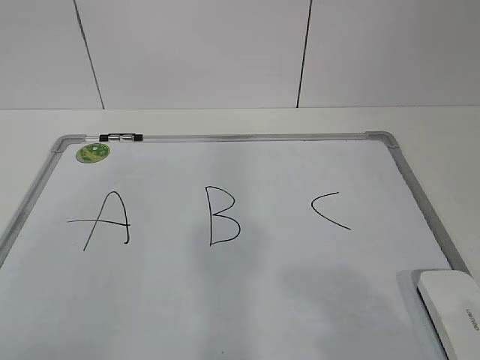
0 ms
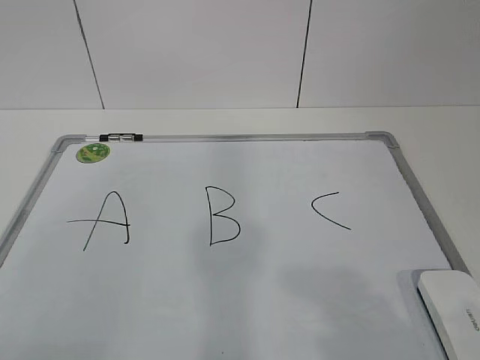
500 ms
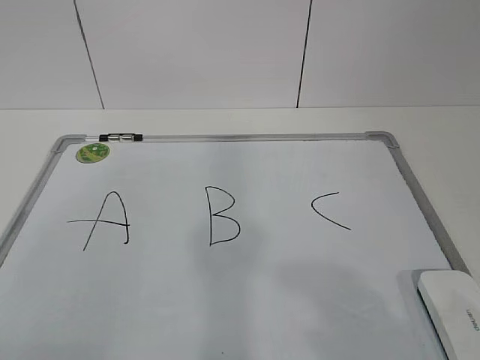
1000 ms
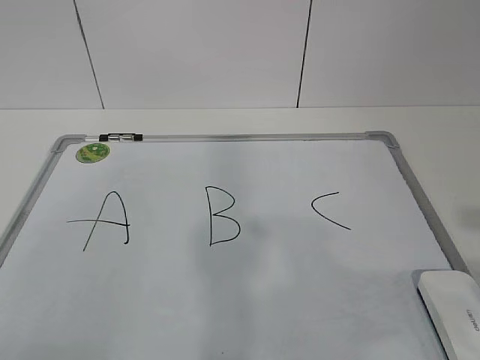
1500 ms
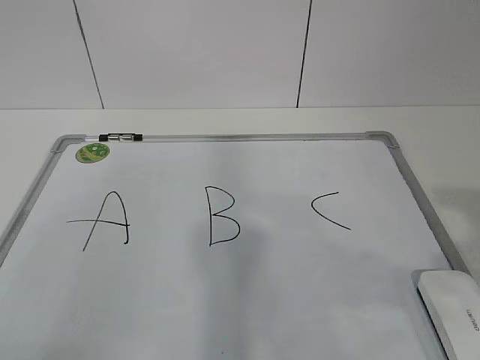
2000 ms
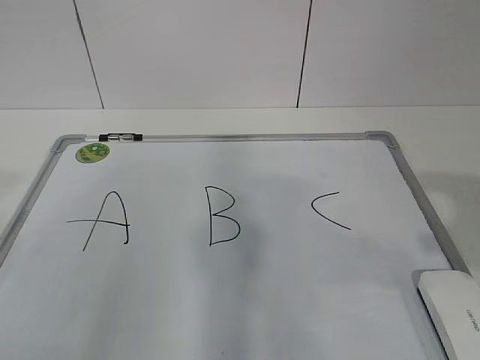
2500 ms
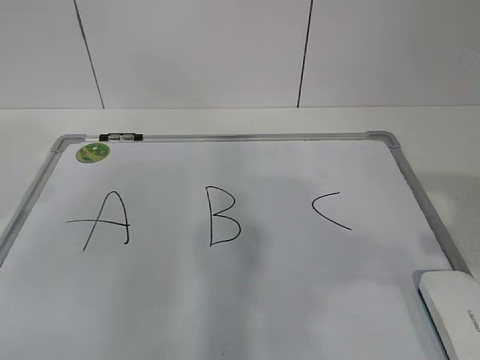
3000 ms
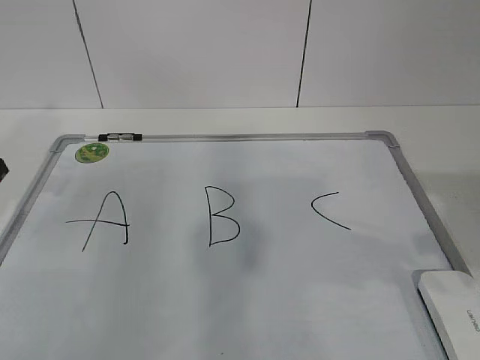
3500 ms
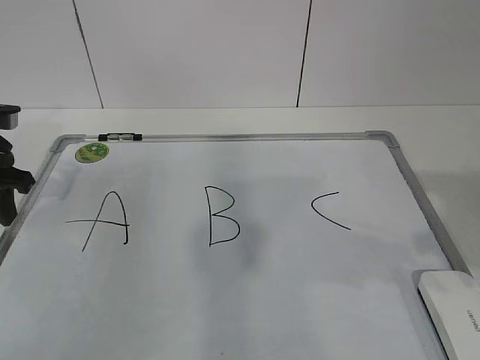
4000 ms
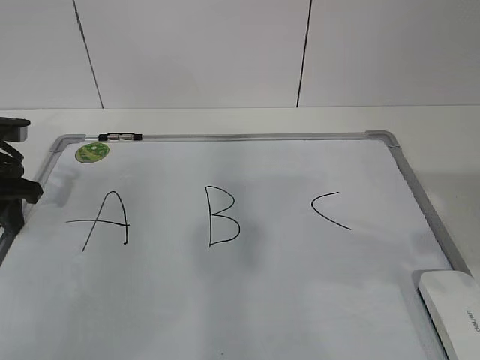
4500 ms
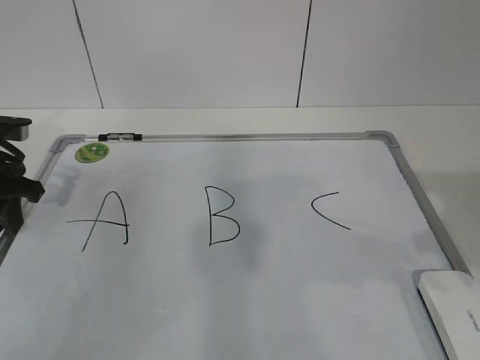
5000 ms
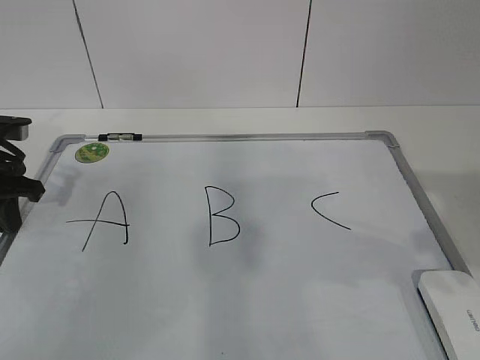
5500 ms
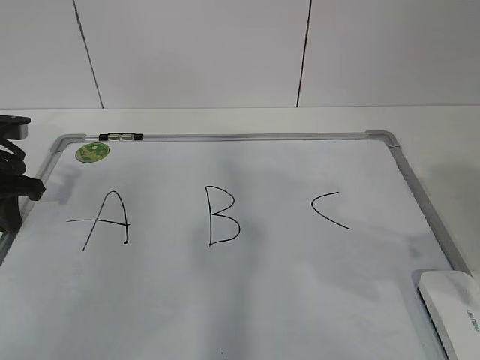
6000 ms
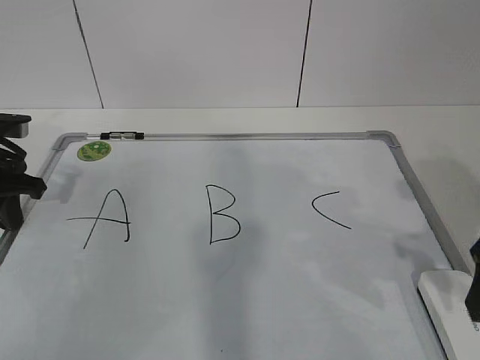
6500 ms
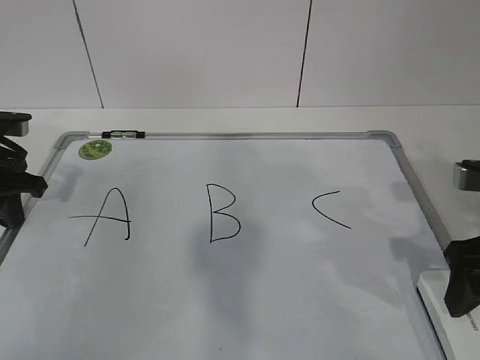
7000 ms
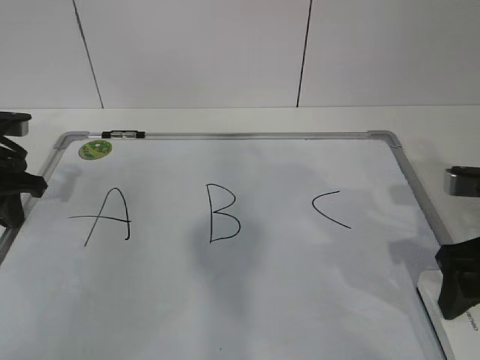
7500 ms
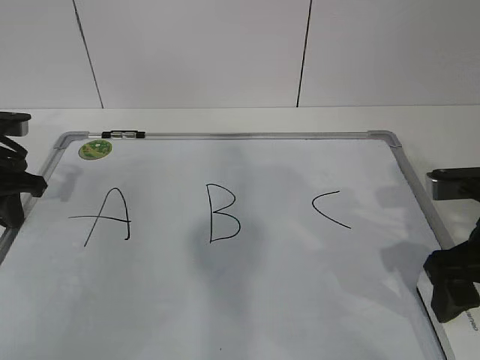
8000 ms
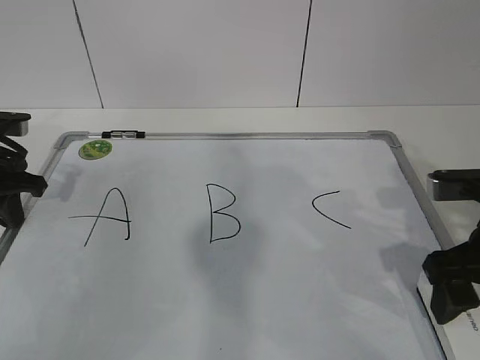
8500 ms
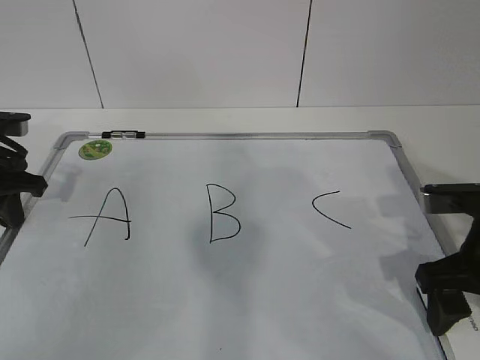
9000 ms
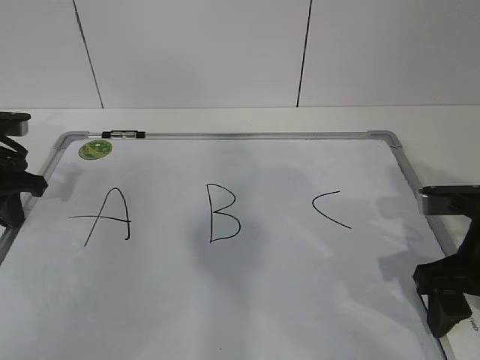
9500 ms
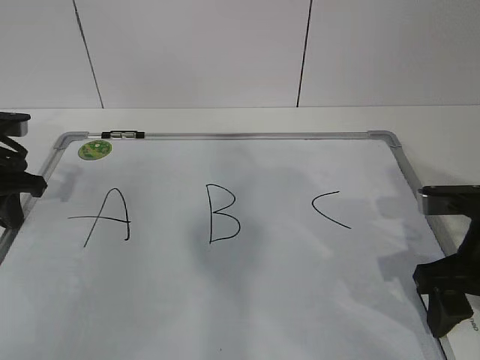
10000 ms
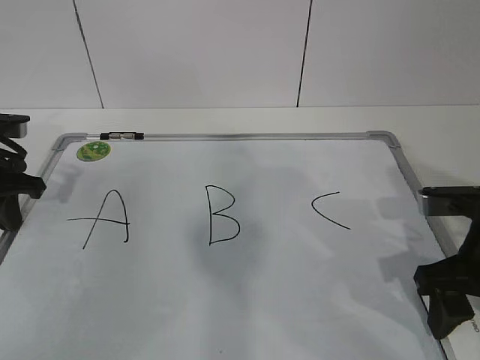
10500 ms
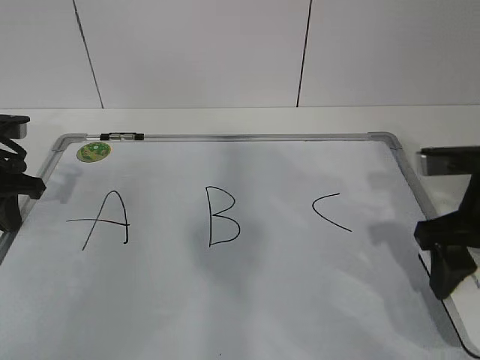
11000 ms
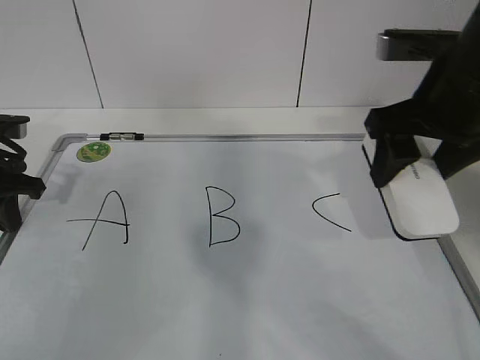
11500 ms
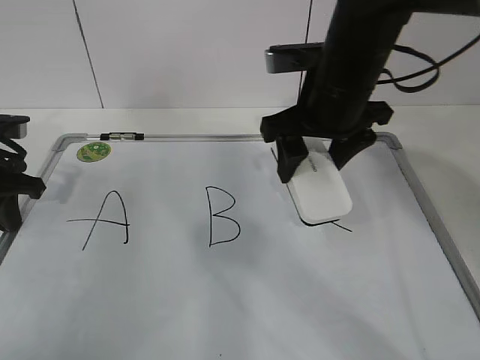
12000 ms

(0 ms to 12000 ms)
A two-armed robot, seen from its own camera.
Task of the whole recording: pick up the eraser on the blackboard and erase the letter "B".
Step, 0 ms - 4000 ms: Hold the drawing board steady with your left hand.
Step, 4500 ms - 8000 ms: Grab the eraser with your right hand.
2000 ms - 4000 ms: The left gripper goes approximately 30 cm forward.
4000 ms - 6000 ms: The left gripper closes its fingers.
6000 ms - 8000 ms: The right gripper goes roughly 10 cm downward and forward, and opens.
8000 ms - 10000 ms: The right gripper closes its fingers.
10000 ms - 12000 ms: The right gripper shifts approximately 20 cm to the left, forward and upward.

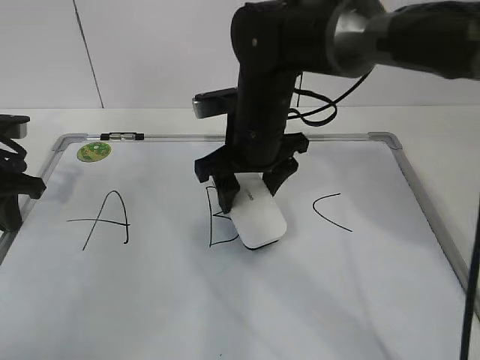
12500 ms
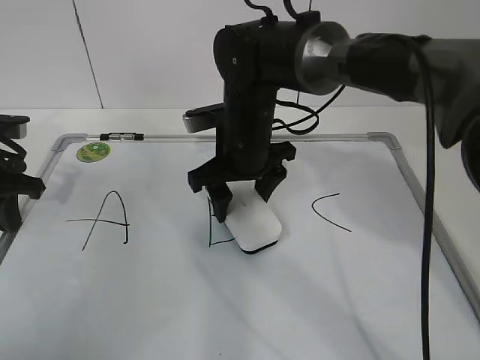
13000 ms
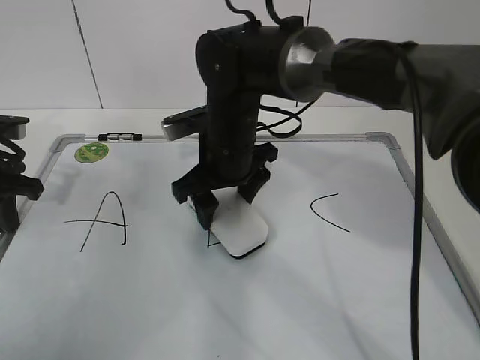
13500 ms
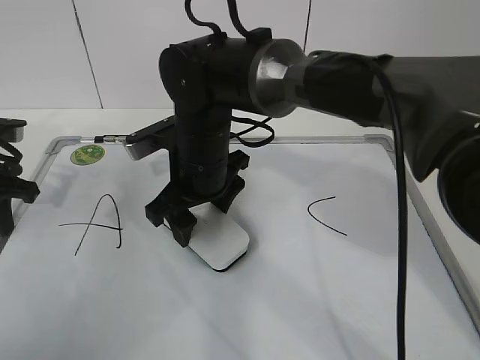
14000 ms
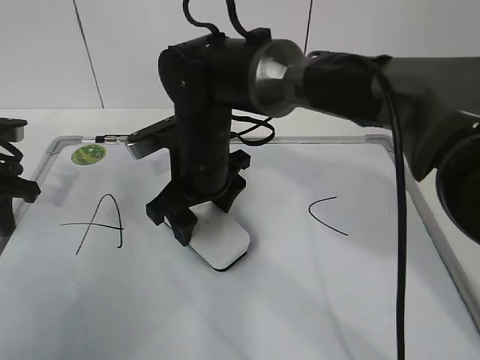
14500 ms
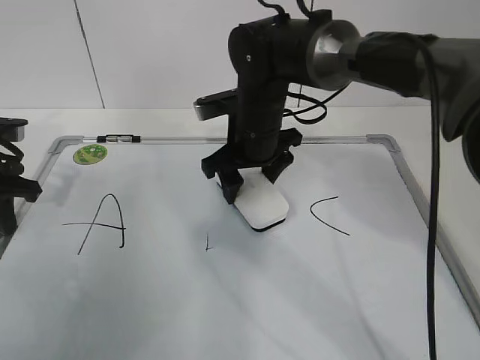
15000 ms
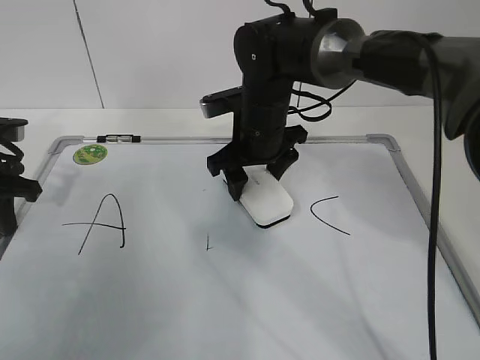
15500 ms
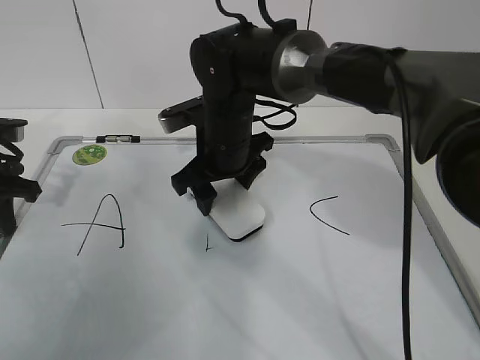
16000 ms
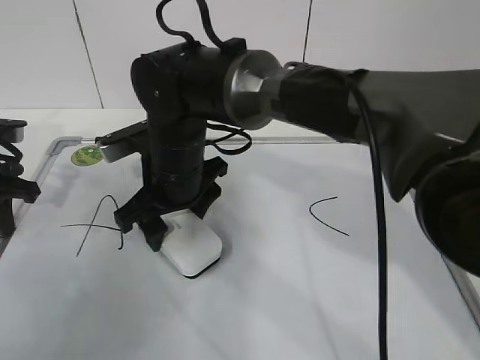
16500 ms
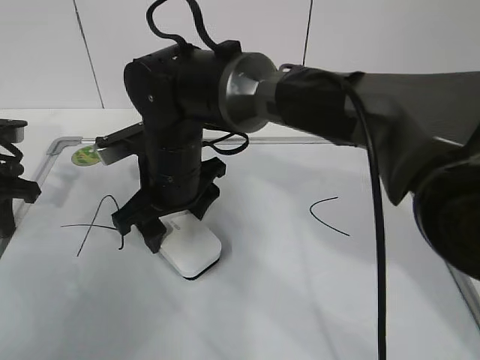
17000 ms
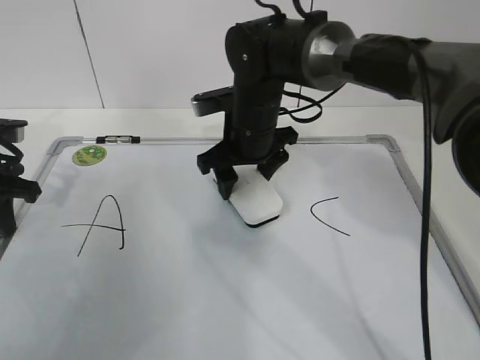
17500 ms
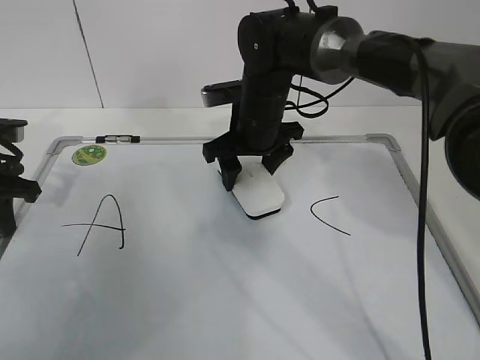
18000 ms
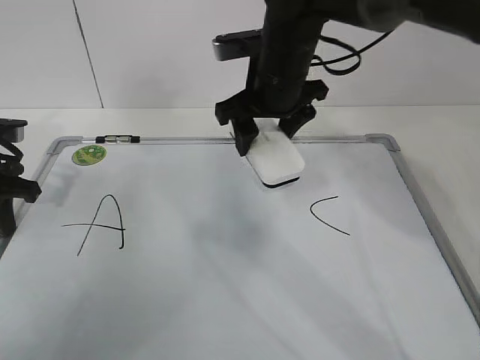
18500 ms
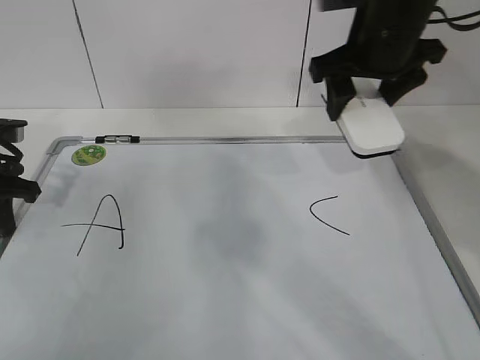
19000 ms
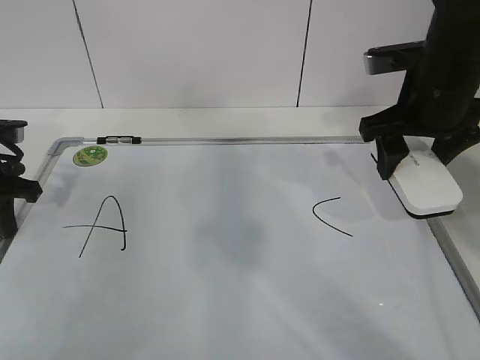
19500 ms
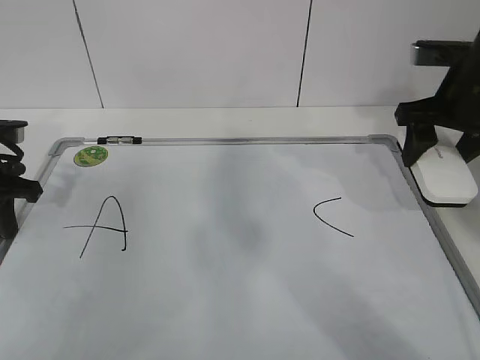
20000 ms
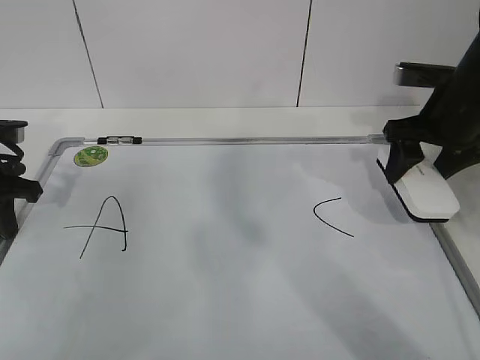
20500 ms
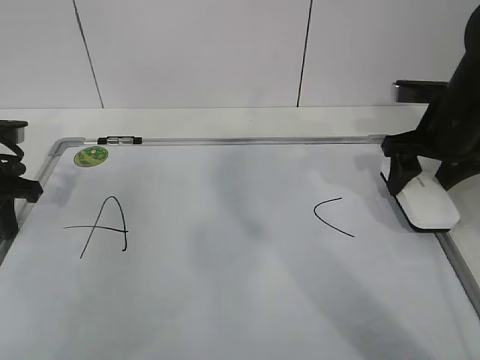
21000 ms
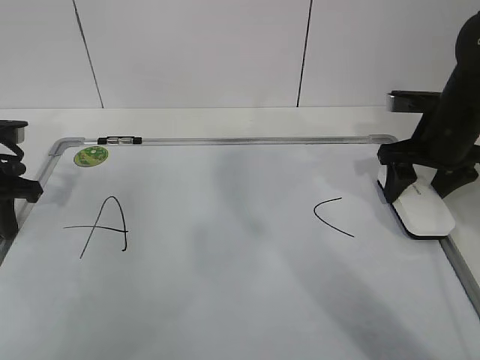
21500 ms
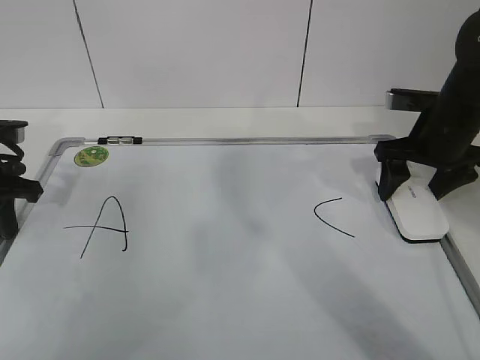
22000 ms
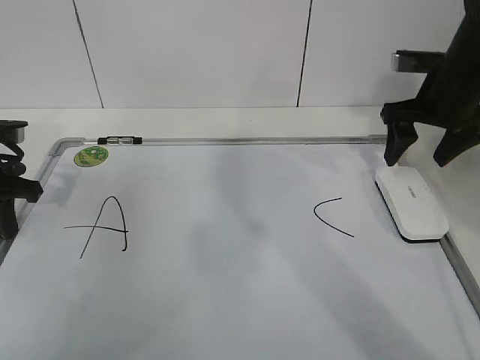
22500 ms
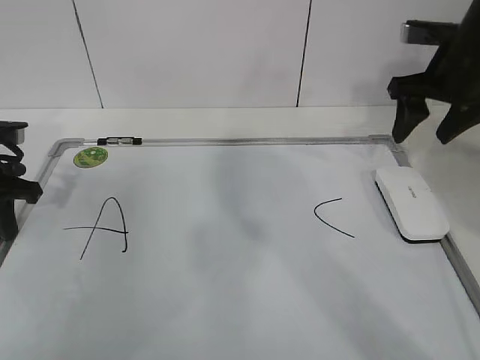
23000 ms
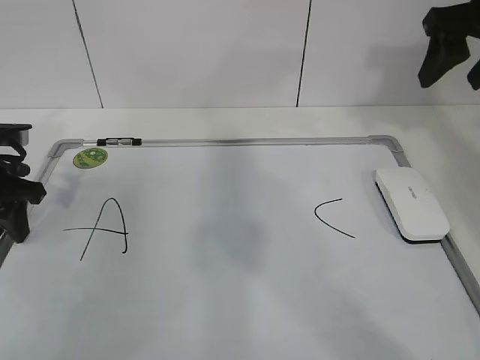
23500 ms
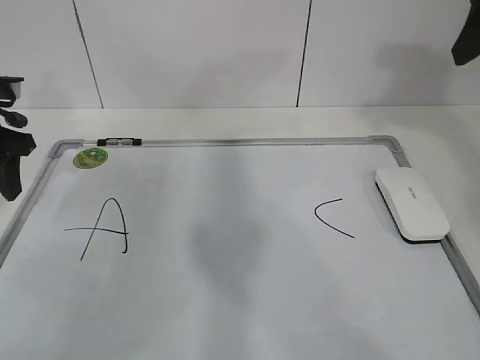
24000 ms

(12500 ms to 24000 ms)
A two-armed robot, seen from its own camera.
Task of the whole recording: pick up the eraser on the blackboard and erase the letter "B".
Step, 12500 ms - 14500 ms: Erase the letter B with your right hand.
Step, 15000 ms - 18000 ms: Put down the eraser with your right hand.
12500 ms - 14500 ms: The right gripper travels to the left by roughly 5 cm.
14500 ms - 16500 ms: The right gripper moves some 5 cm to the right and comes back.
16500 ms - 18500 ms: The right gripper travels to the right, upward and forward by some 15 cm.
18500 ms - 20000 ms: The right gripper travels to the right by some 20 cm.
20000 ms - 22000 ms: The right gripper travels downward by some 5 cm, and opens up.
22000 ms - 24000 ms: The left gripper moves upward, about 5 cm, and opens up. Meanwhile the right gripper heads upward, covering approximately 20 cm, and closes up.

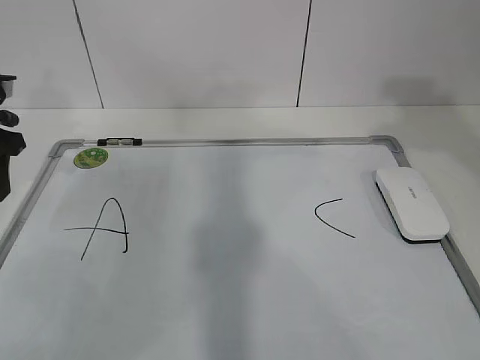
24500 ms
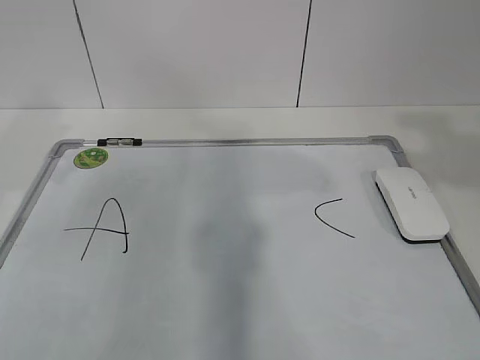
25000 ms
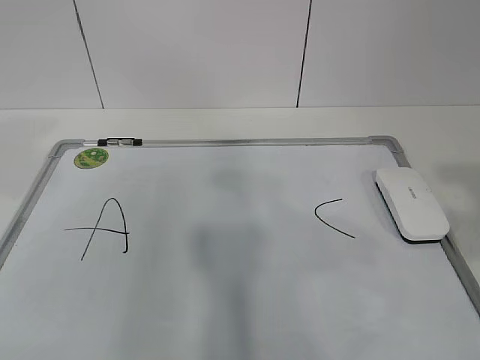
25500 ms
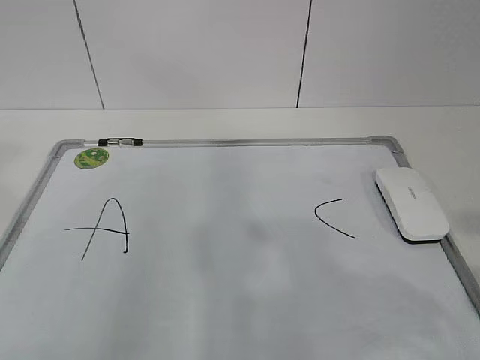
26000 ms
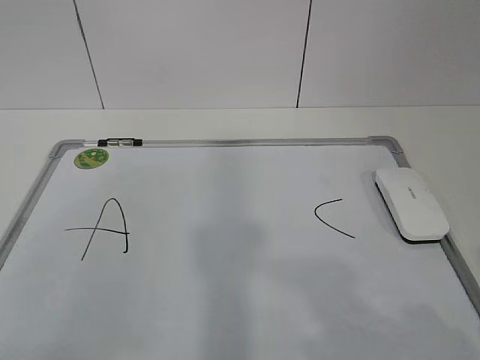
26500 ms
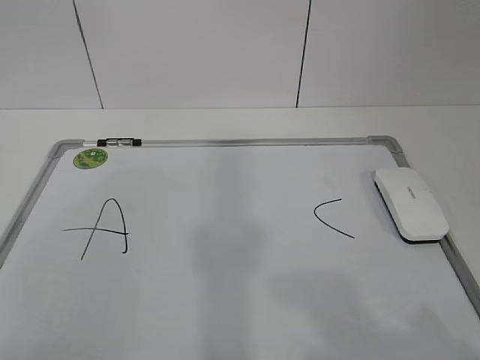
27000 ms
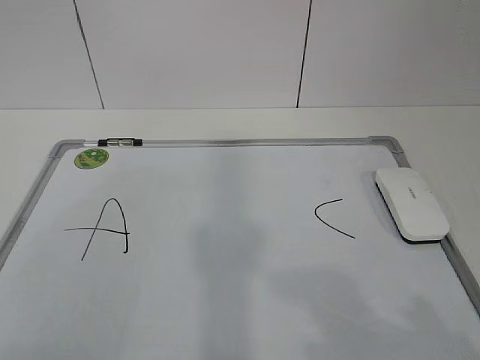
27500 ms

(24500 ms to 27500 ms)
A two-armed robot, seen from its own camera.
Task of the whole recording: pick up the eraser on the blackboard and erase the letter "B".
24500 ms - 26000 ms: The left gripper heads backward and upward, covering about 30 cm, and closes up. The right gripper travels backward by about 20 cm.
